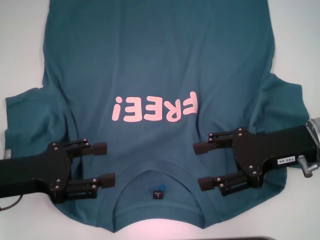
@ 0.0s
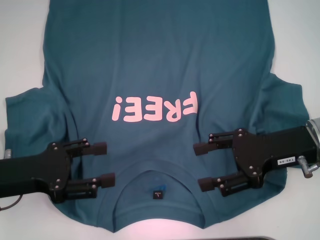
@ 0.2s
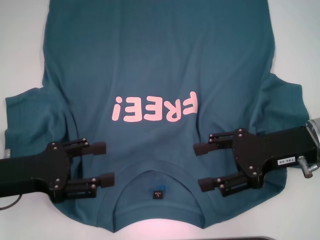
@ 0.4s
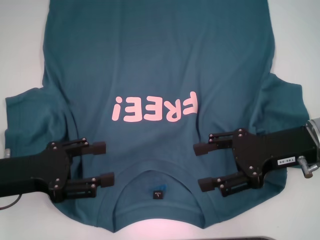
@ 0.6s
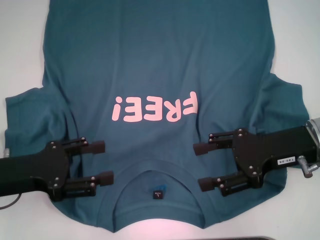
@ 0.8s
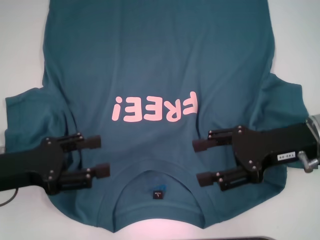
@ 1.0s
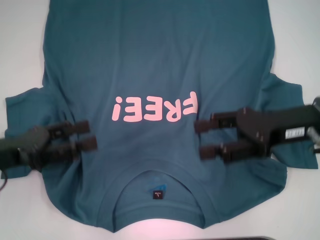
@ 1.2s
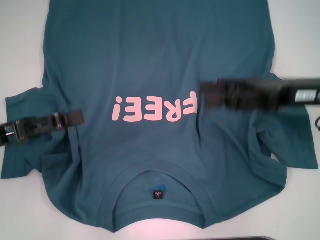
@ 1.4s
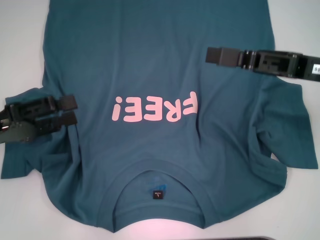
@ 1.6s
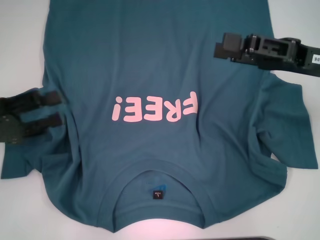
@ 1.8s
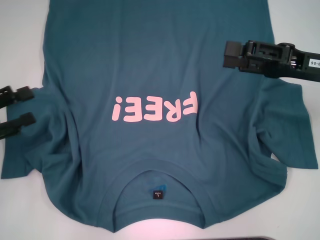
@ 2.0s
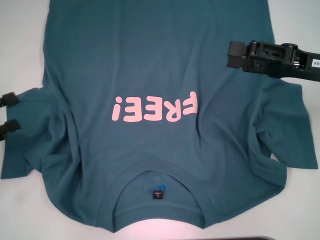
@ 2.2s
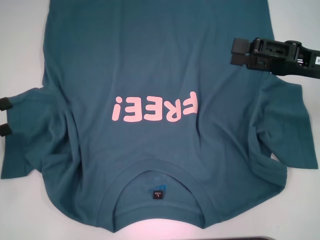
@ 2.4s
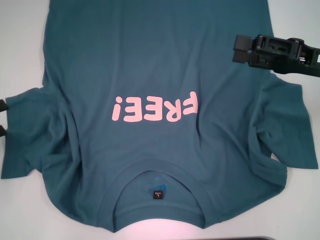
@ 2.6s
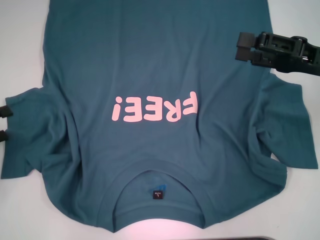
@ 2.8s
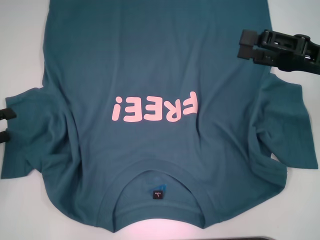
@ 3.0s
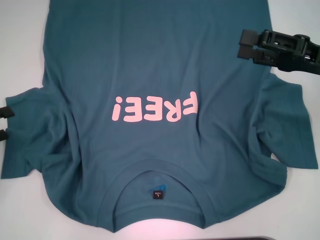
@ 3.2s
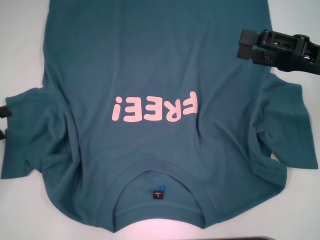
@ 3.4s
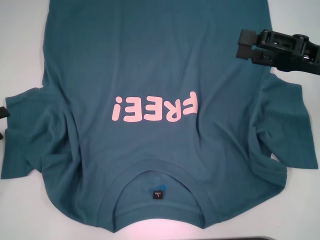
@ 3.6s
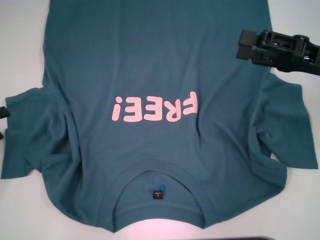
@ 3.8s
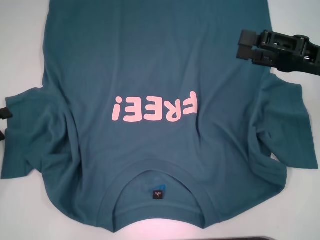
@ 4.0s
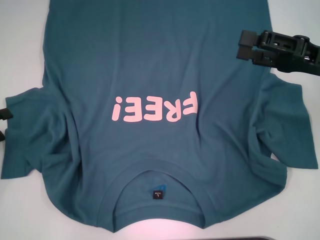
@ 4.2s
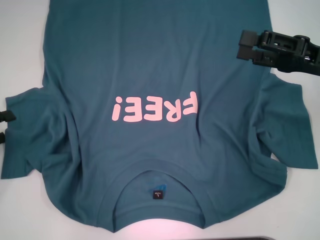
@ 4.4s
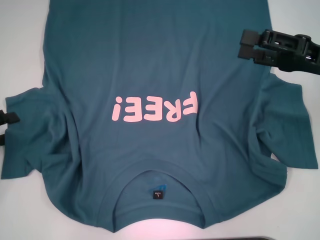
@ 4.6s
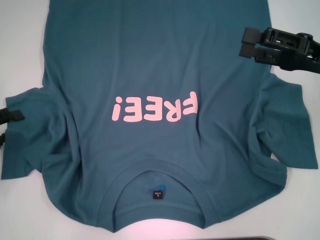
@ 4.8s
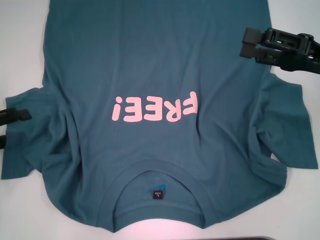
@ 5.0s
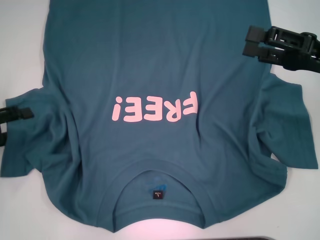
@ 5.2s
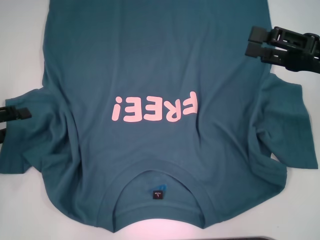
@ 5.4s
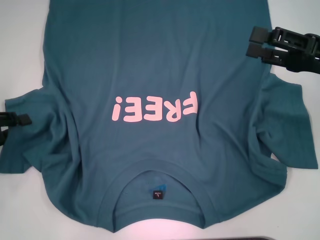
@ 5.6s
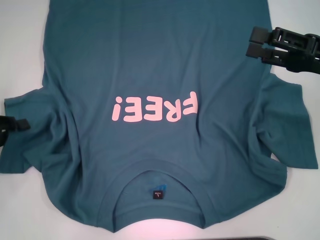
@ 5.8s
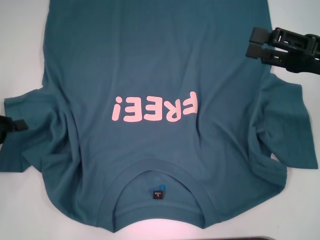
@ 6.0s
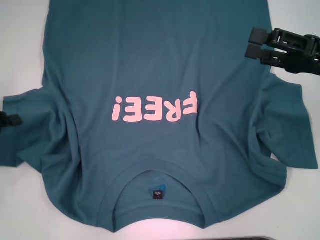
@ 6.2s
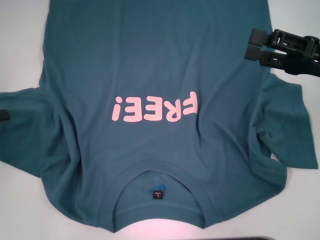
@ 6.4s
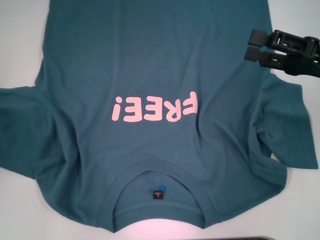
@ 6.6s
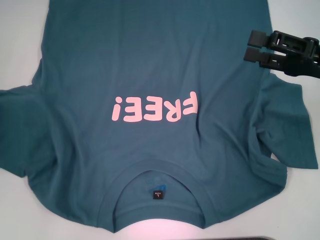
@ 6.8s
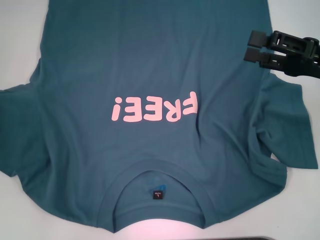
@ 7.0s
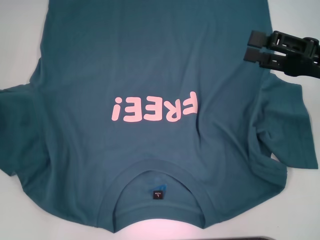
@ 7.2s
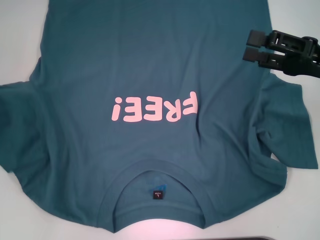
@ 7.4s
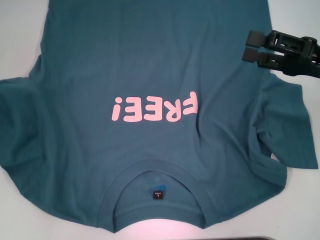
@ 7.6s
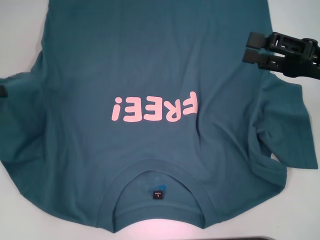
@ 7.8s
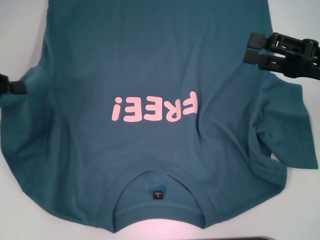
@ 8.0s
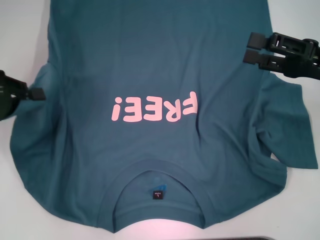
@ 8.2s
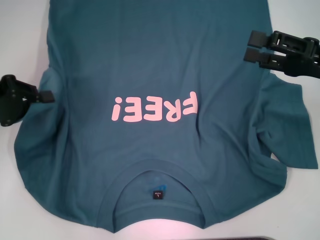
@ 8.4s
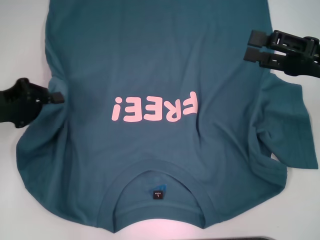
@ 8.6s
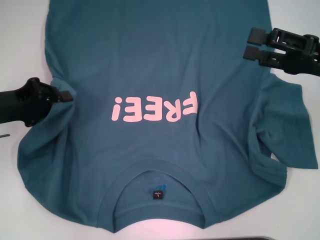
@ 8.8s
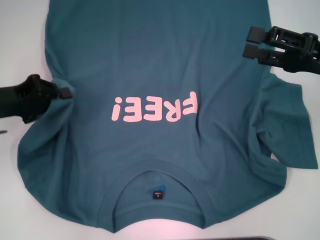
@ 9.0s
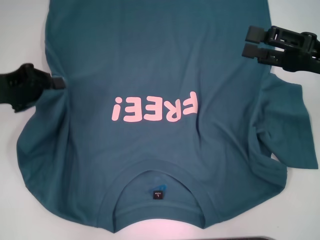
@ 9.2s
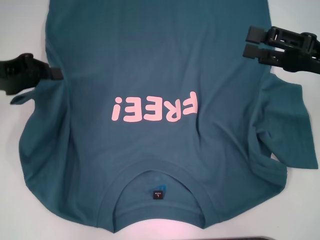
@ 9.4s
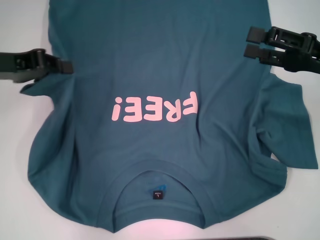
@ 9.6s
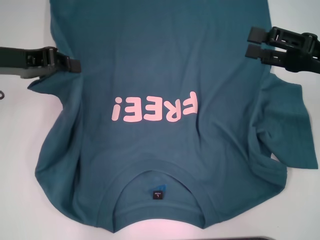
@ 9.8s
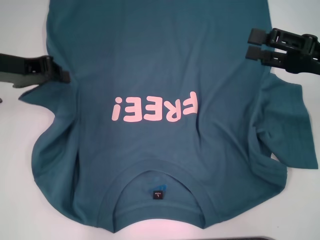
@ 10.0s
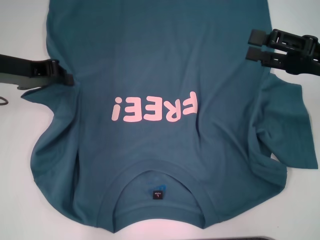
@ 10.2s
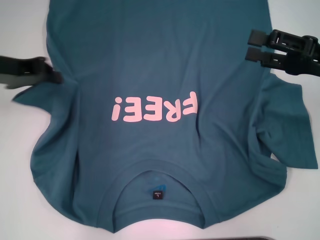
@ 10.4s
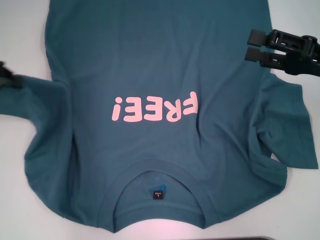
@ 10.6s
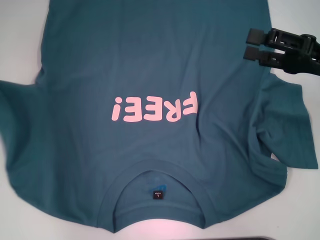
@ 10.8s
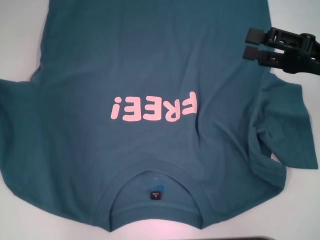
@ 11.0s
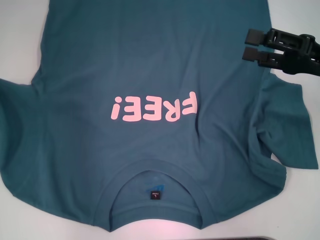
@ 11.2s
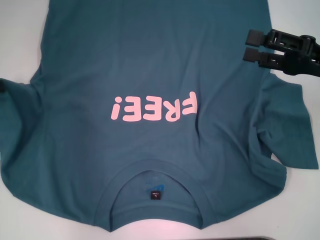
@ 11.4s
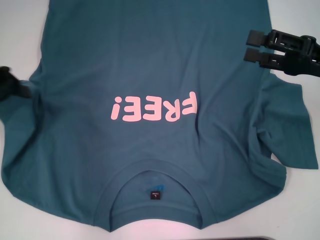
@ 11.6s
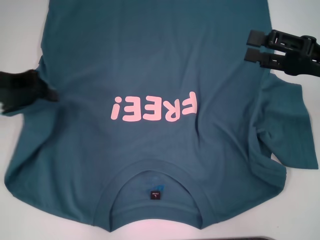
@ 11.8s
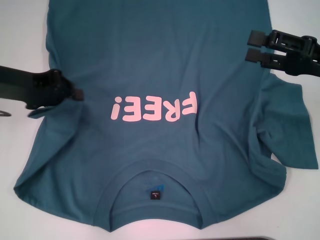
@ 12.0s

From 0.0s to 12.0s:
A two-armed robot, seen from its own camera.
From 0.0s to 1.6s: The left gripper changes place by approximately 5 cm, while the right gripper is displaced upward by some 5 cm.
From 1.6s to 3.0s: The left gripper travels to the left by roughly 10 cm.
From 3.0s to 4.4s: Both grippers stay about where they are.
From 4.4s to 6.0s: The left gripper closes.
From 6.0s to 7.6s: The left gripper moves upward, some 10 cm.
From 7.6s to 9.0s: The left gripper goes approximately 10 cm to the right.
From 9.0s to 10.4s: The left gripper travels upward by roughly 5 cm.
From 10.4s to 12.0s: The left gripper moves about 10 cm to the left and comes back.

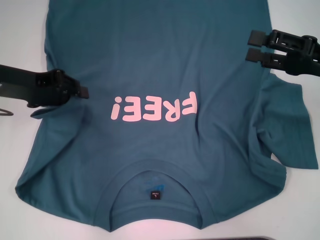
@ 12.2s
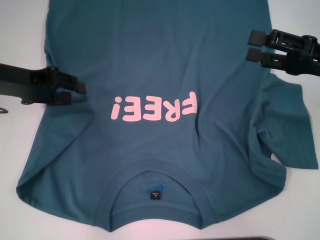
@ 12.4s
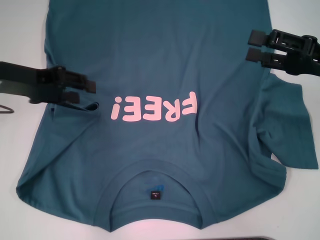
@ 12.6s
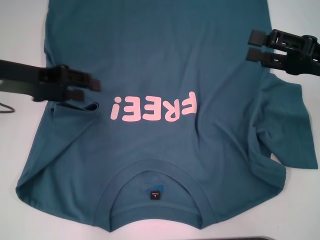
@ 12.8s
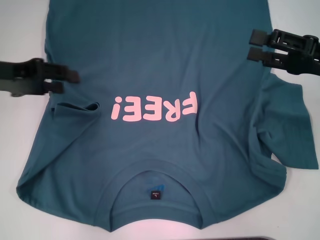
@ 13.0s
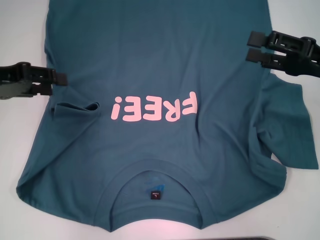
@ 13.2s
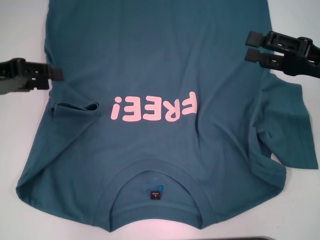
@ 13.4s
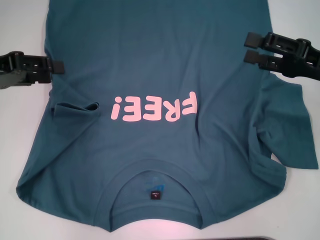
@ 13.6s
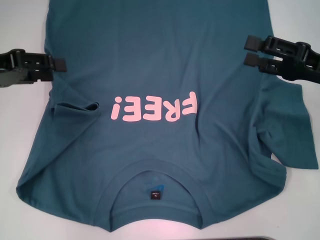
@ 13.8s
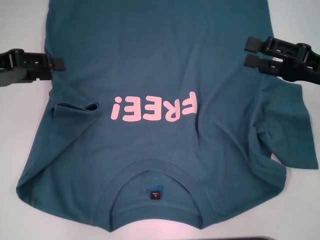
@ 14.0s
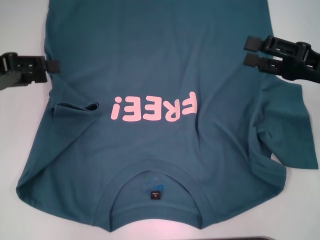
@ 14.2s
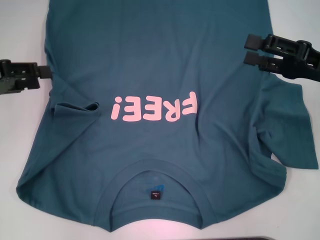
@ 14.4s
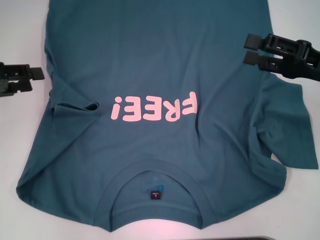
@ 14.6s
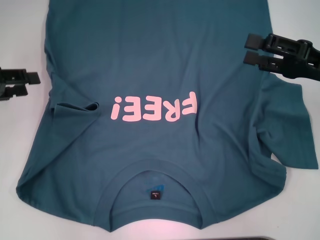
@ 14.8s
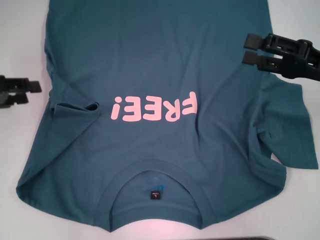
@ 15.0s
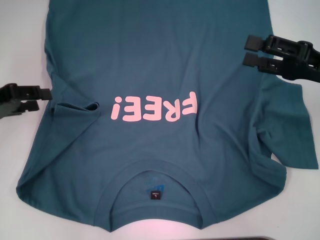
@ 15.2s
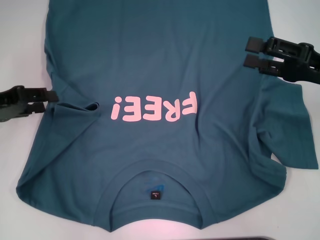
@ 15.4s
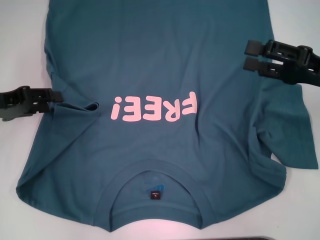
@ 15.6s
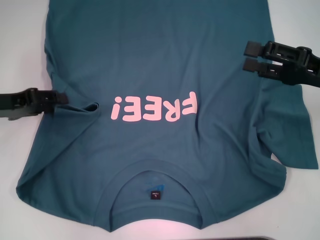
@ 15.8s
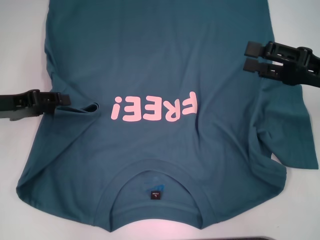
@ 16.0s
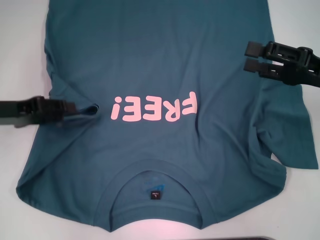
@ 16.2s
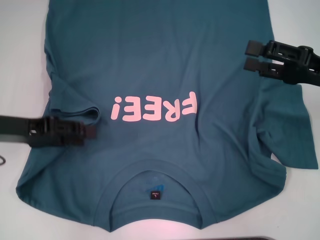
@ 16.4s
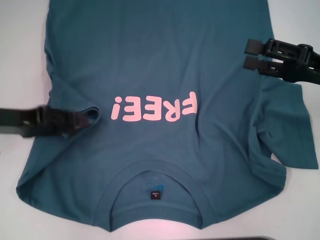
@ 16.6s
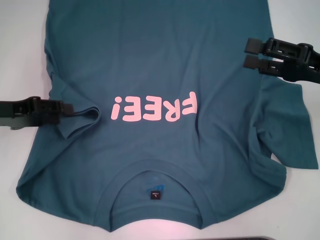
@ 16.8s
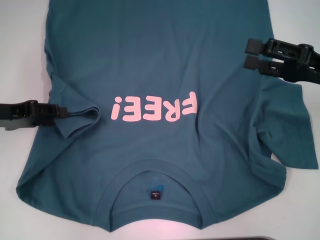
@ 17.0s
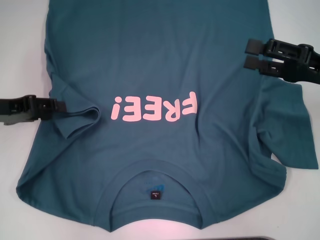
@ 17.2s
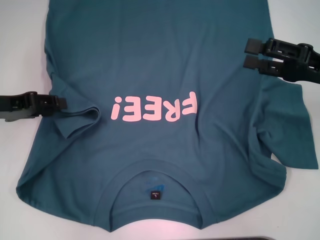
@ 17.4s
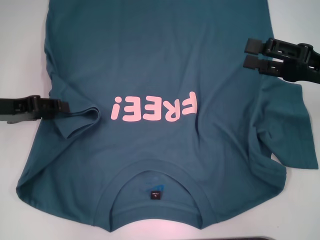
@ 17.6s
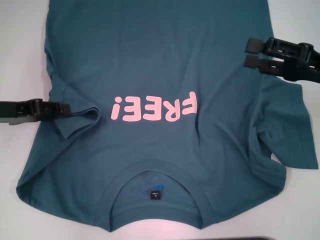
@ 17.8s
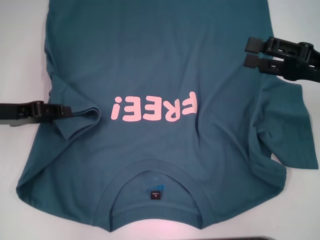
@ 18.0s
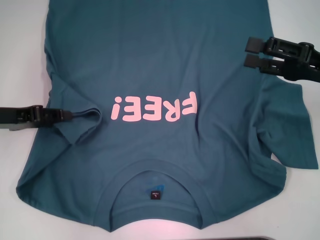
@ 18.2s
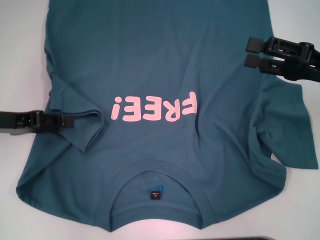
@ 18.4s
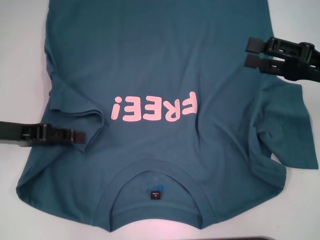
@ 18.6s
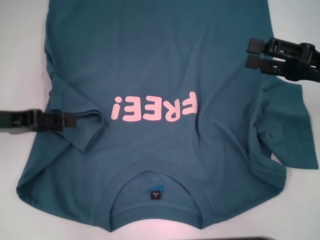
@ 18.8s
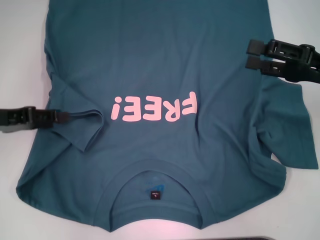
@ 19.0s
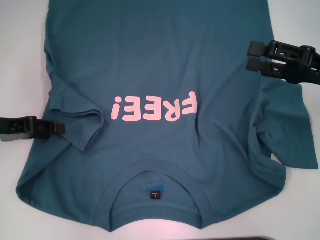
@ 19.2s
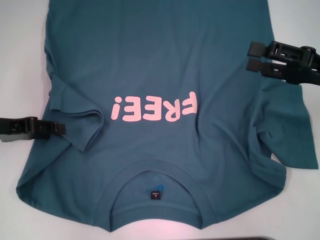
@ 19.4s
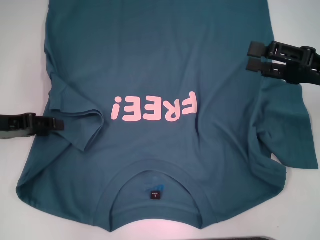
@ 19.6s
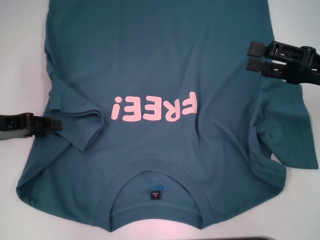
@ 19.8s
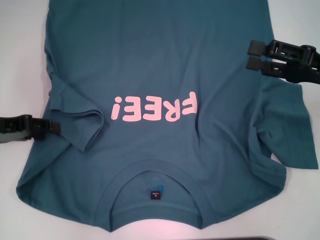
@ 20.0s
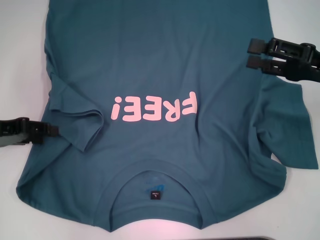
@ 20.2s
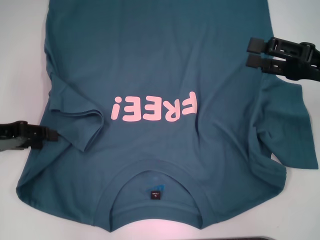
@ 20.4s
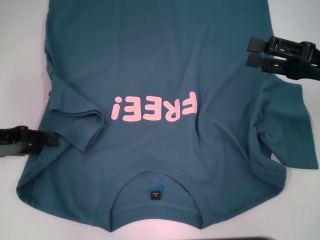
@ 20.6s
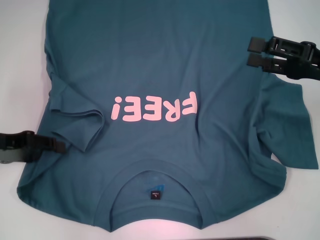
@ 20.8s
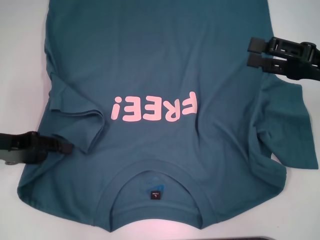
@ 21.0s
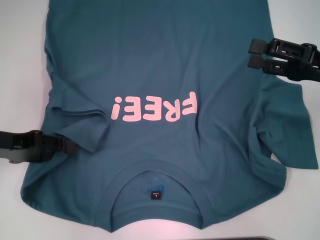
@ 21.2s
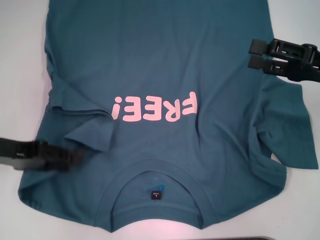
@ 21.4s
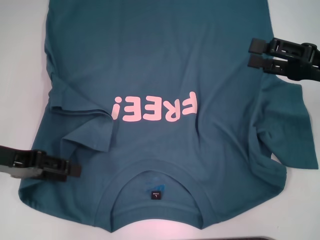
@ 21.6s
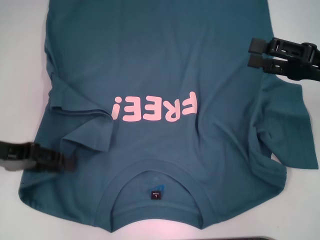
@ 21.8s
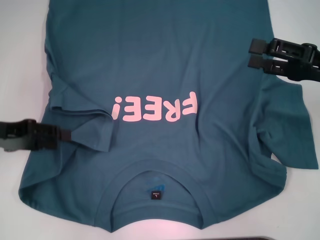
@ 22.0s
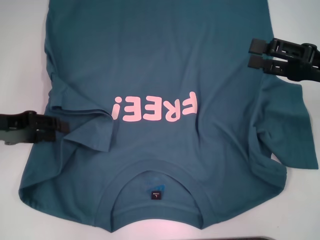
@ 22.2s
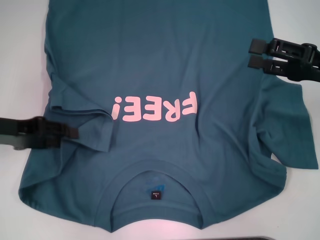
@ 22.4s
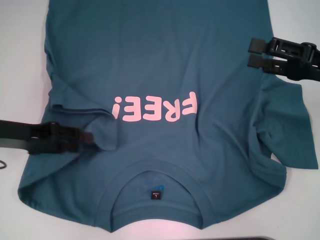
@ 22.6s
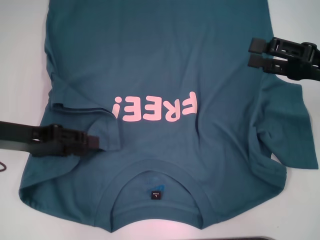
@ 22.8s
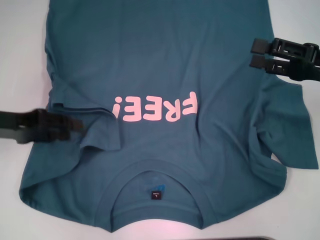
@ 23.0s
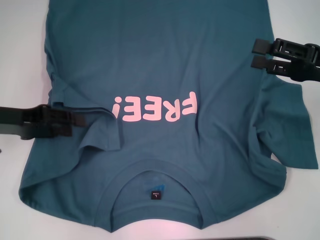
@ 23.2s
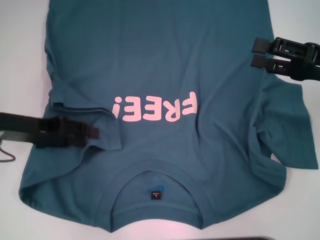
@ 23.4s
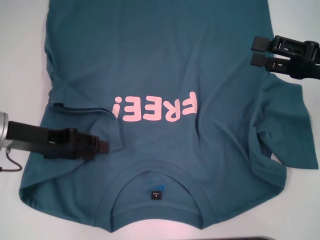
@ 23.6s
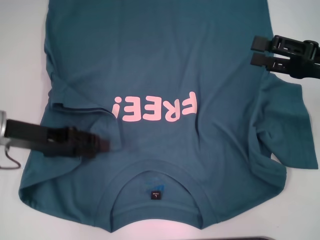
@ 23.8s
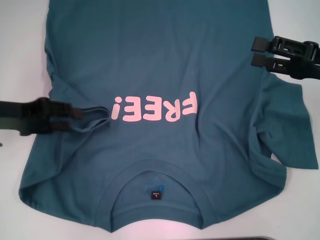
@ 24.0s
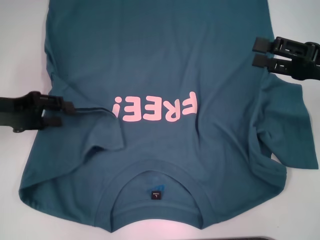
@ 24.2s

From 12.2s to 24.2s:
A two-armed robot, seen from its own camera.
From 12.2s to 13.8s: The left gripper ends up some 5 cm from where it was, and opens up.
From 13.8s to 15.2s: The left gripper goes about 5 cm downward.
From 16.6s to 24.2s: The grippers make only small movements.
